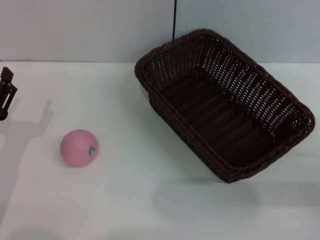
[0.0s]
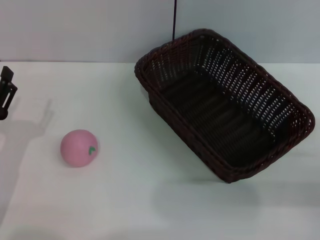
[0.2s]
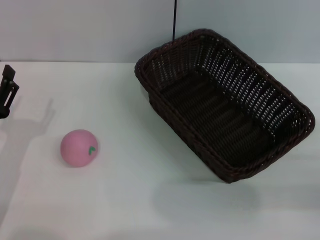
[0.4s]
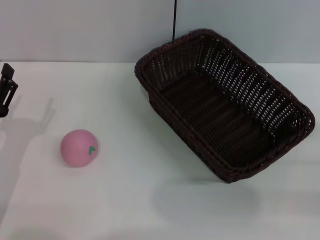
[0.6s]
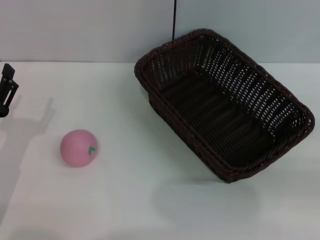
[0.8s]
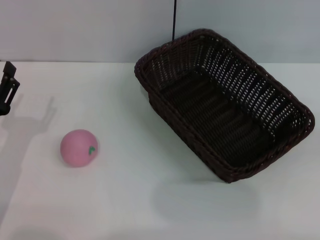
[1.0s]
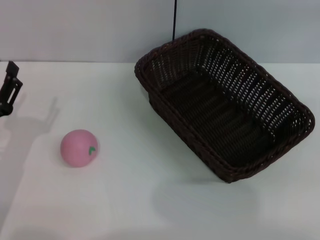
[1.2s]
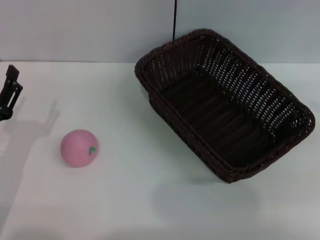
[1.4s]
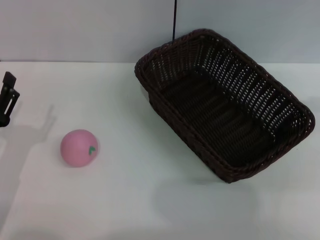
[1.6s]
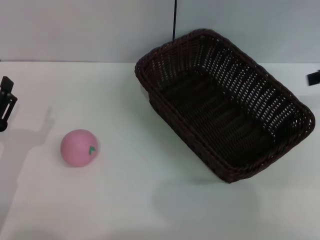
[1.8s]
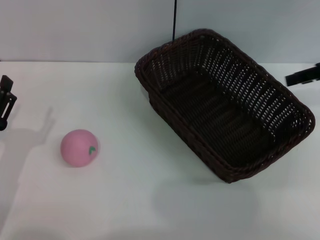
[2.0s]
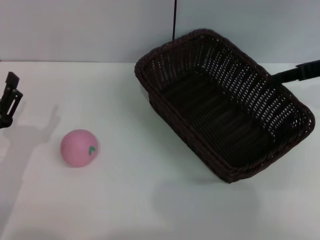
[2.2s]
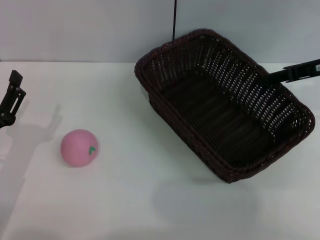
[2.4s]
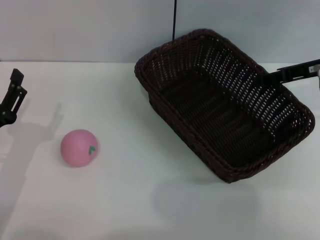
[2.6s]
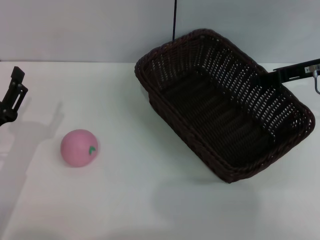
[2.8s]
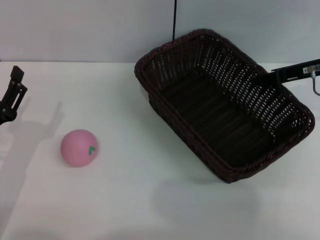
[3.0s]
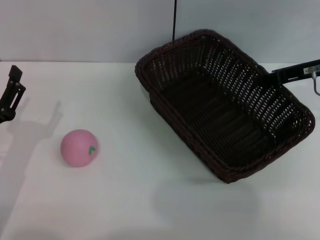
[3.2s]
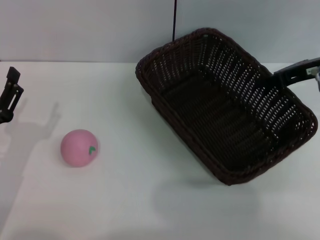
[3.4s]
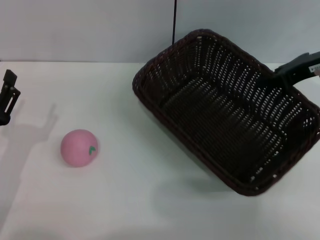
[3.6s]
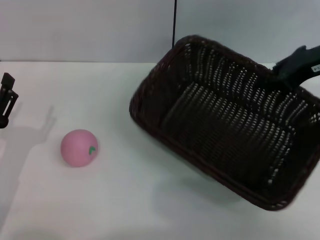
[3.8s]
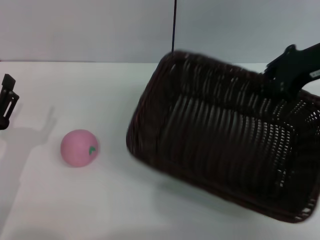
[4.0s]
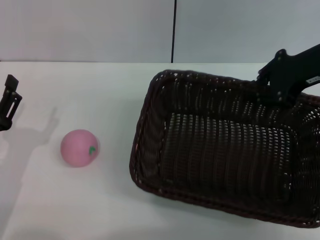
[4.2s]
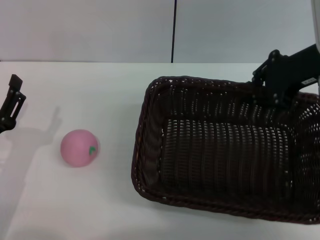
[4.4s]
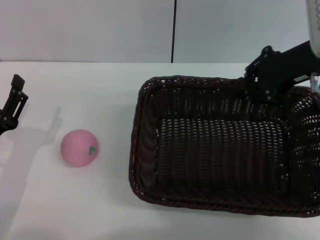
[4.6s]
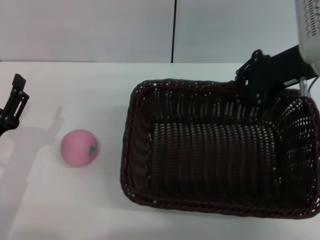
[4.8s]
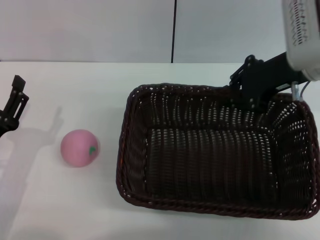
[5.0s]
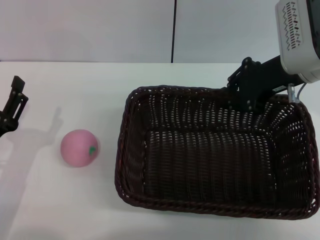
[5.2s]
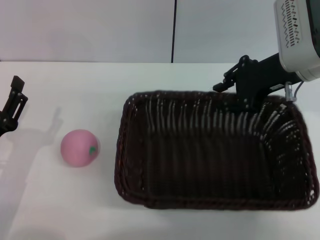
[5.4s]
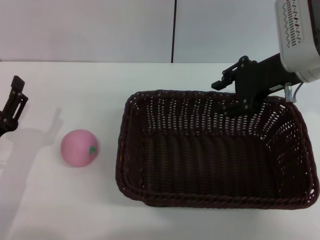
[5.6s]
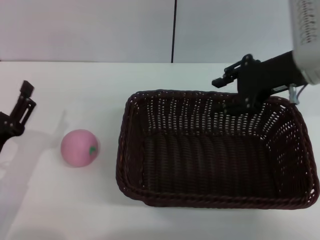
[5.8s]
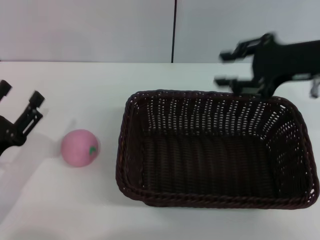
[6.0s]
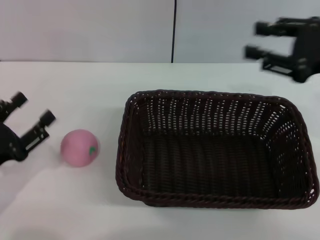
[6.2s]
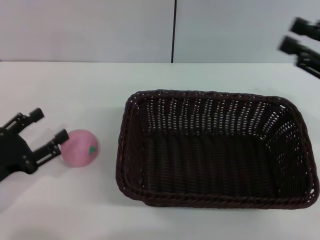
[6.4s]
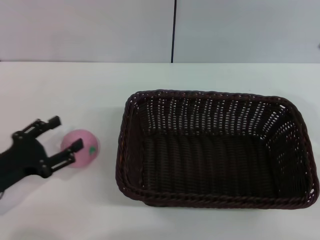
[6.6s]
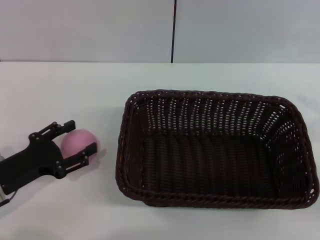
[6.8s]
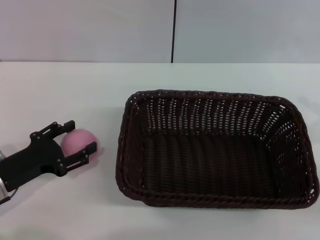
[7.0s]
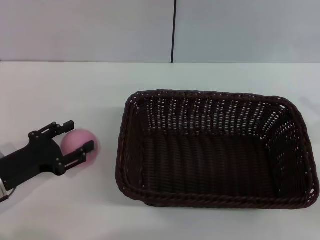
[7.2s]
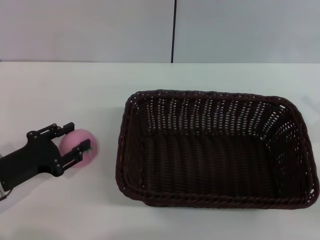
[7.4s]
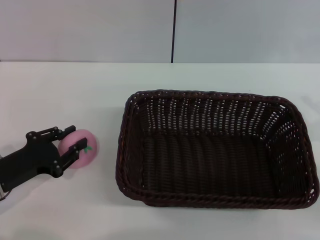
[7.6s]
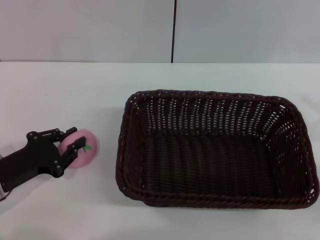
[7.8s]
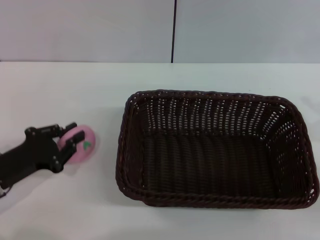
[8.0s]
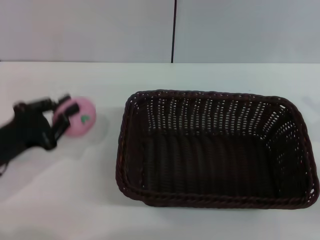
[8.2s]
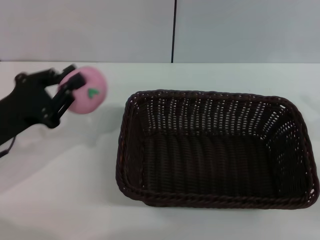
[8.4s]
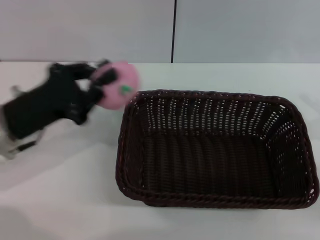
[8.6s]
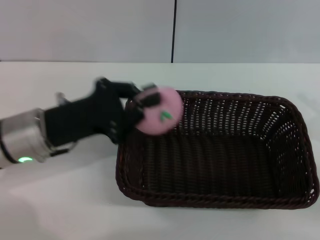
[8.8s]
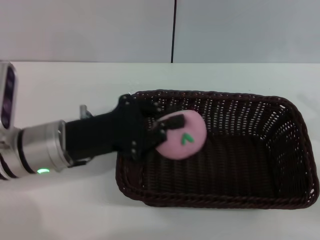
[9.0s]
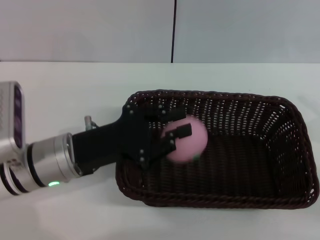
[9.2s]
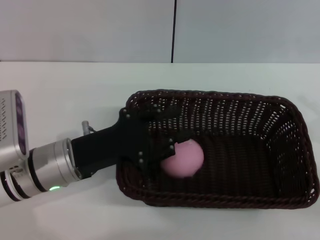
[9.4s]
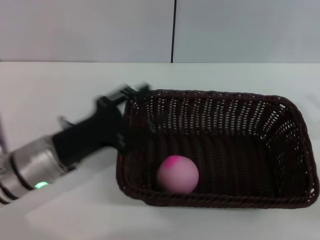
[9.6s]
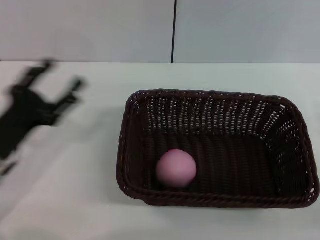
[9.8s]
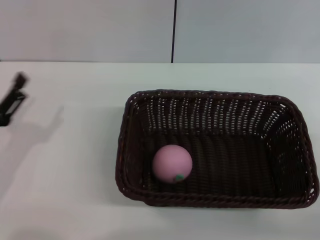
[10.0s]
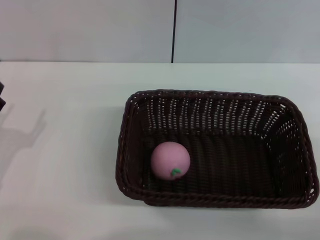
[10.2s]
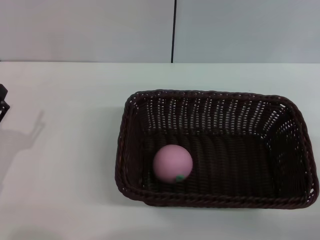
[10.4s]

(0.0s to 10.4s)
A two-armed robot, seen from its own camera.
Step, 0.0s - 3.8s: Pick up the dark basket with the right gripper.
Step, 4.0s - 6.0s: Place the dark basket in the center of view with the right gripper.
Step, 6.2s - 8.4s: Pick up the peach with the left gripper.
Step, 8.6s - 9.6s: Place the peach into the basket with the left gripper.
0.0s - 1.4s: The right gripper shifts about 25 cm upward and forward.
1.4s - 3.0s: The right gripper goes about 20 cm to the left, downward and forward, and closes.
3.0s - 4.4s: The right gripper shifts about 10 cm upward and to the left, and closes up.
4.4s - 6.0s: The right gripper opens its fingers.
6.0s - 7.4s: The right gripper is displaced downward, backward and to the right by roughly 20 cm.
7.4s - 9.0s: The left gripper travels to the right and upward by some 15 cm, and closes up.
9.0s - 10.4s: The left gripper goes about 15 cm to the left, backward and downward, and opens up. Meanwhile the right gripper changes place by approximately 5 cm.

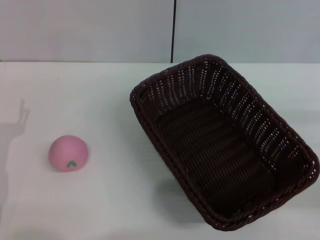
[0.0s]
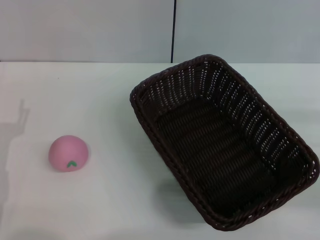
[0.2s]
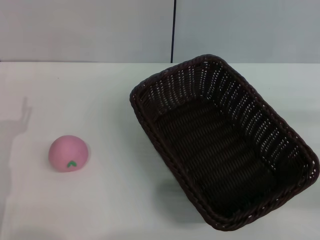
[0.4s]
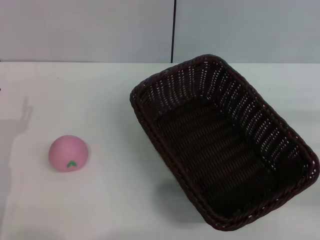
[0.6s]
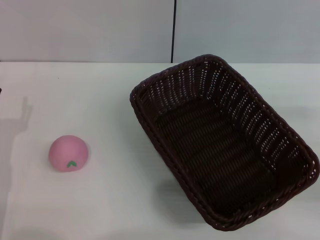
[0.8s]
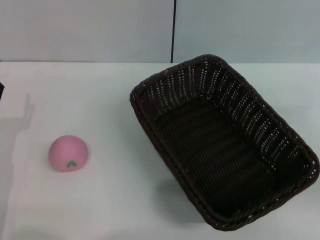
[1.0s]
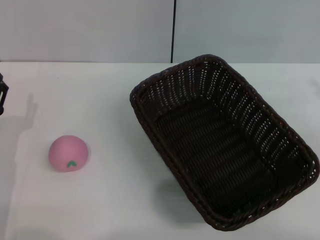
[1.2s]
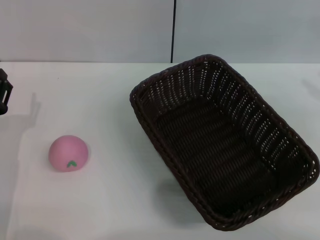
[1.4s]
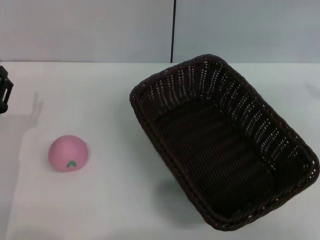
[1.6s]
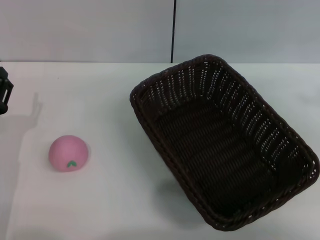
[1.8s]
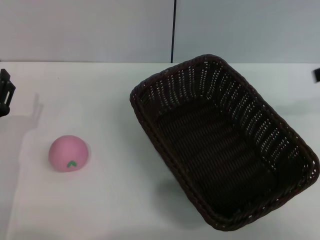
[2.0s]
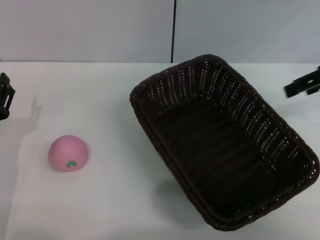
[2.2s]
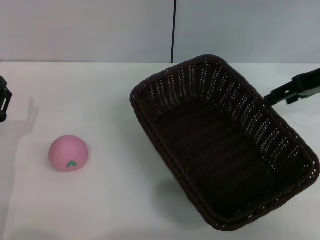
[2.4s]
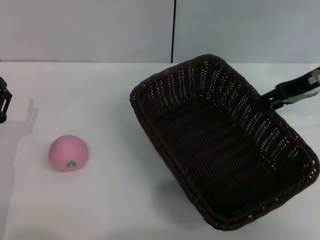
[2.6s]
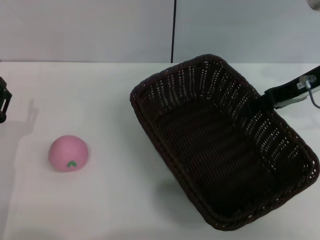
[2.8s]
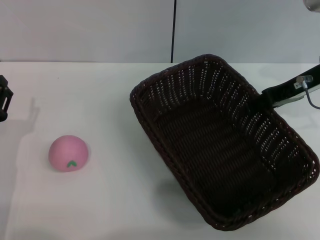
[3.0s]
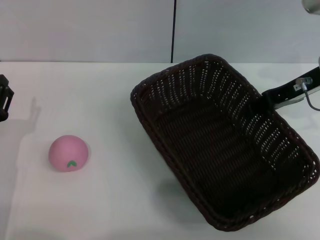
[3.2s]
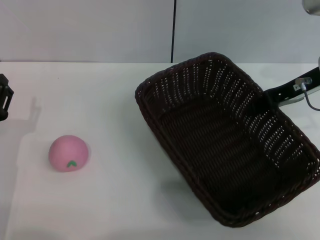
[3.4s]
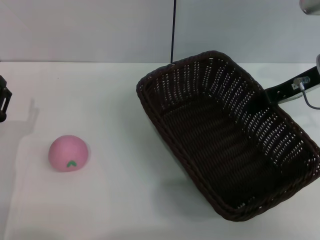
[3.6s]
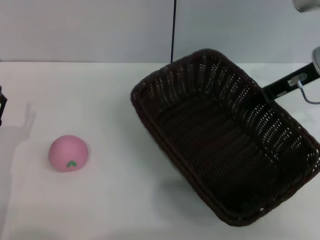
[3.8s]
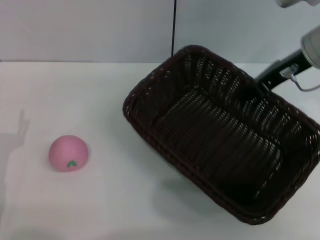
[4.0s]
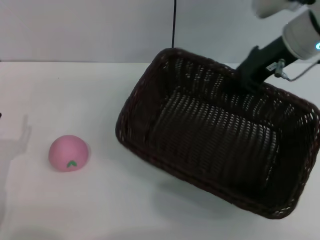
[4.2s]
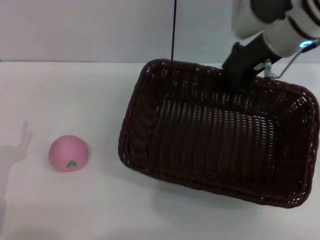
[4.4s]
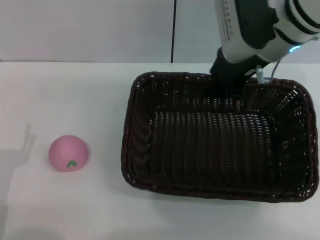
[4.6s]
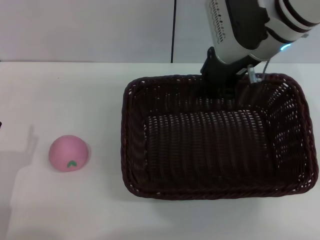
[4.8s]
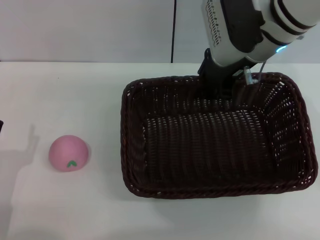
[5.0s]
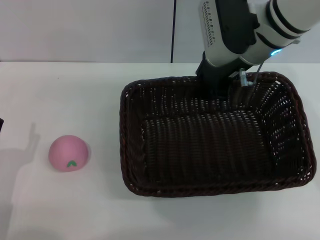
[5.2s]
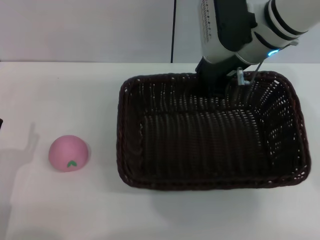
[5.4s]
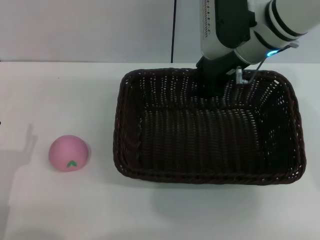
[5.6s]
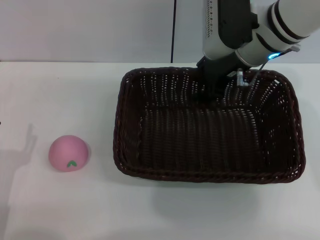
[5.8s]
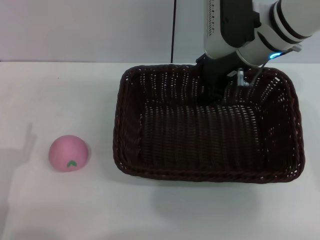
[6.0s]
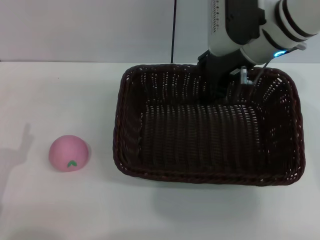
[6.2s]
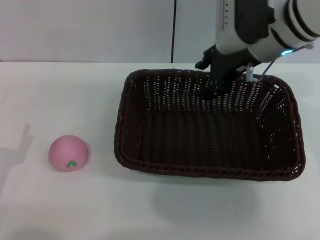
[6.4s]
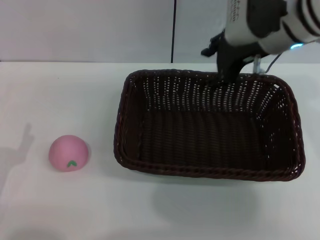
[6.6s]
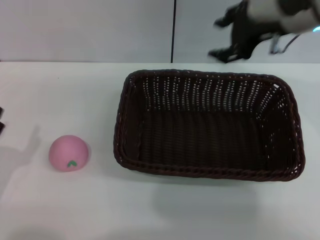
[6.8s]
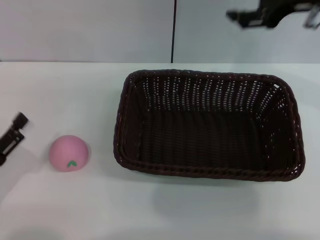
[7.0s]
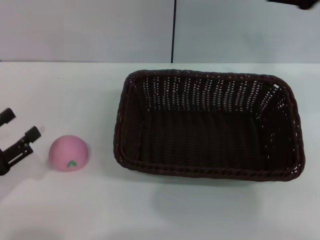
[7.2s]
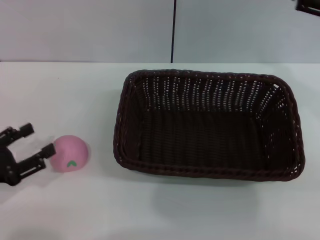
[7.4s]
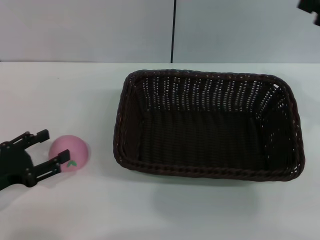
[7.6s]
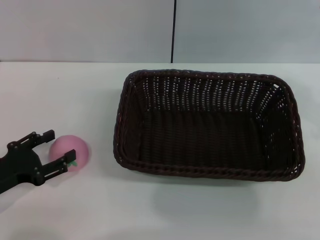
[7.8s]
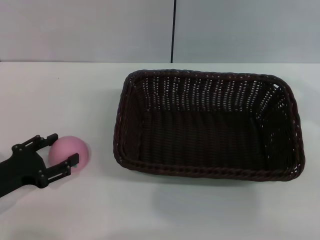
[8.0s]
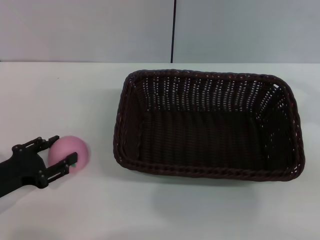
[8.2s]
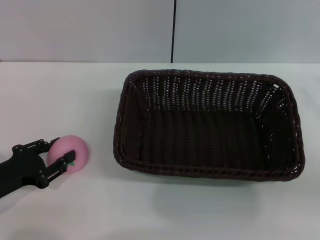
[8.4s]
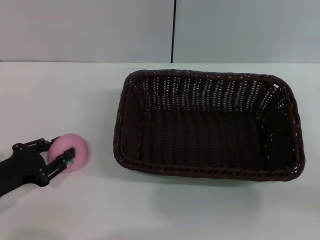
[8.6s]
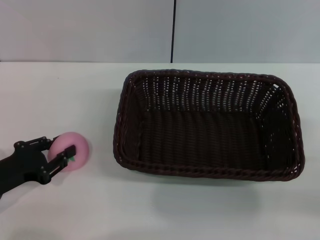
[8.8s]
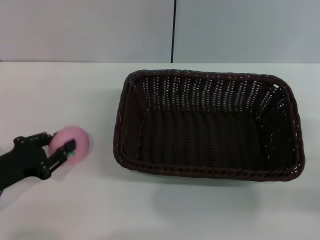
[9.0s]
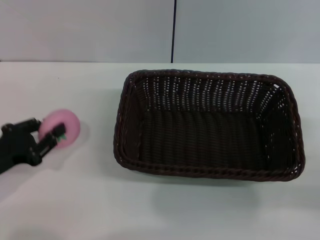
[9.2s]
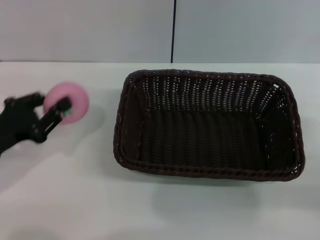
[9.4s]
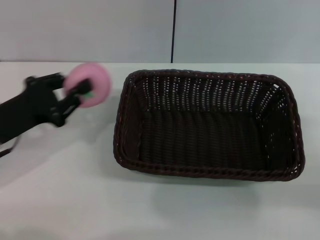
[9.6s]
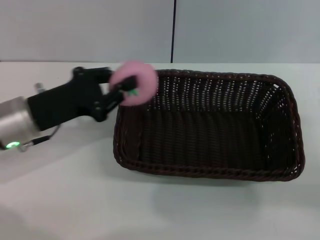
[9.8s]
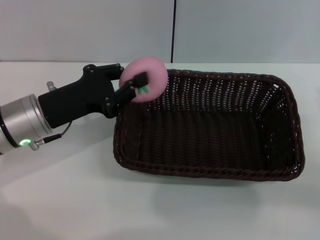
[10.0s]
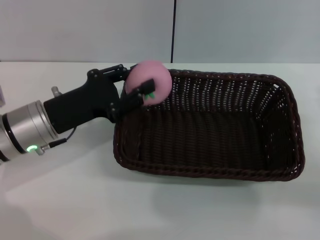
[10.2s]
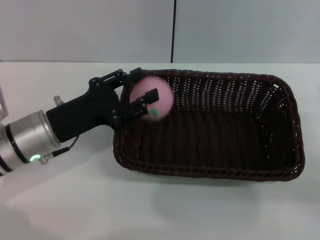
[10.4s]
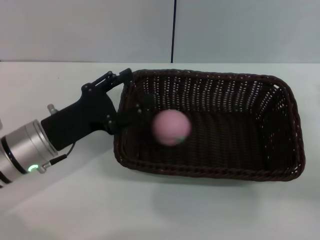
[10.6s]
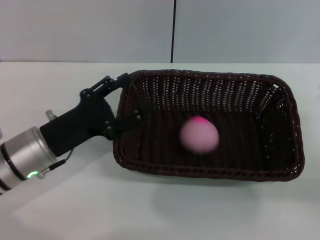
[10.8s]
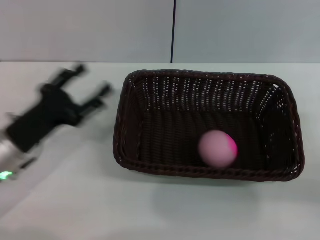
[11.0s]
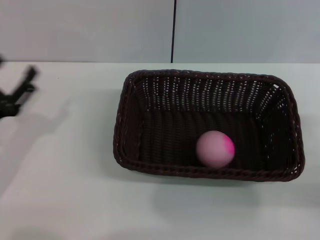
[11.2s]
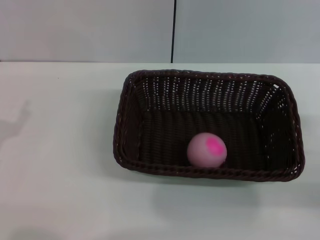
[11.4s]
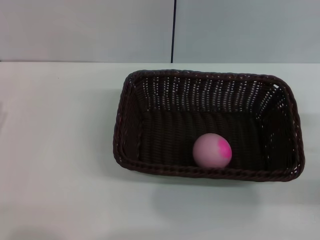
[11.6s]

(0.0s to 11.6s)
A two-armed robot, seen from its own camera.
Step, 0.0s - 3.8s: Pick up the dark basket with the right gripper.
Step, 4.0s - 6.4s: Place the dark basket in the center of view with the right gripper.
Step, 6.8s - 9.4s: Pick up the peach with the left gripper.
Step, 9.6s - 10.4s: Place the peach into the basket with the left gripper.
1.4s - 2.8s: The right gripper moves to the left and forward, roughly 20 cm.
2.8s - 4.4s: The right gripper travels to the left by about 10 cm, and closes its fingers; the left gripper heads backward, covering approximately 5 cm.
4.4s - 5.8s: The grippers make only small movements.
5.8s - 7.2s: The right gripper moves to the right, upward and backward, approximately 20 cm, and opens its fingers, while the left gripper heads to the left, covering some 5 cm.
7.2s - 8.8s: The left gripper shifts by some 5 cm, and closes up. The right gripper heads downward, backward and to the right, covering about 25 cm.
8.8s - 10.2s: The left gripper is displaced to the right, forward and upward by approximately 15 cm, and closes.
10.2s - 11.6s: The left gripper travels to the left and backward by roughly 15 cm, and opens.
